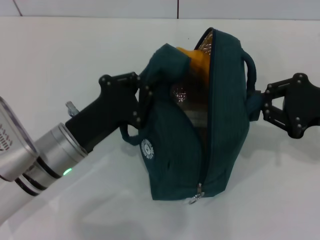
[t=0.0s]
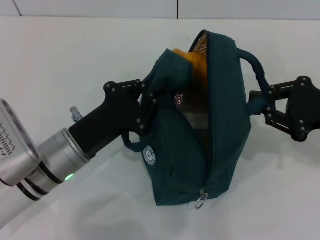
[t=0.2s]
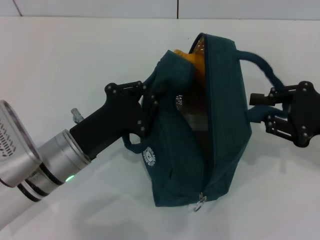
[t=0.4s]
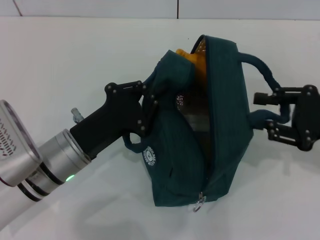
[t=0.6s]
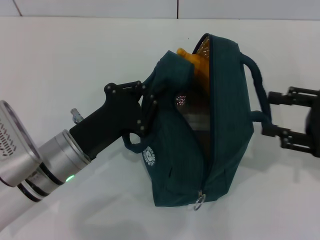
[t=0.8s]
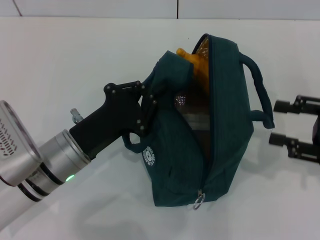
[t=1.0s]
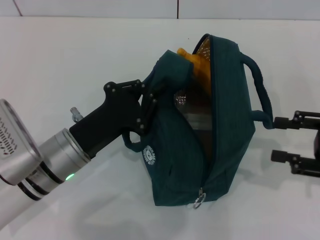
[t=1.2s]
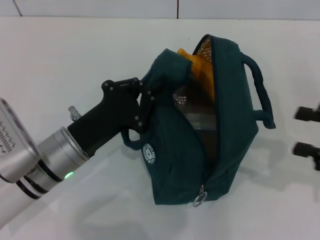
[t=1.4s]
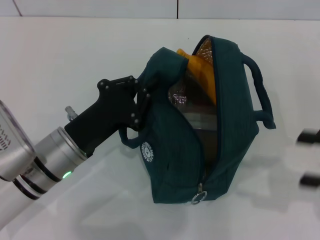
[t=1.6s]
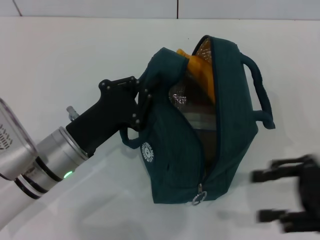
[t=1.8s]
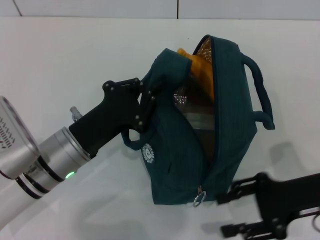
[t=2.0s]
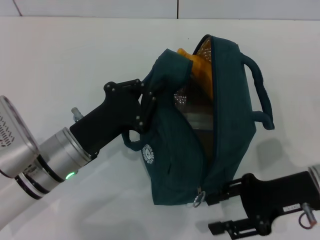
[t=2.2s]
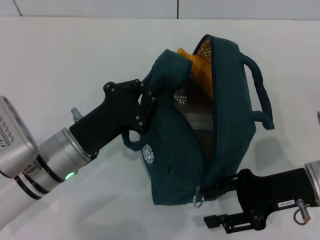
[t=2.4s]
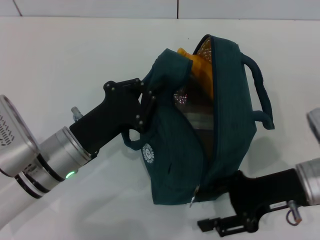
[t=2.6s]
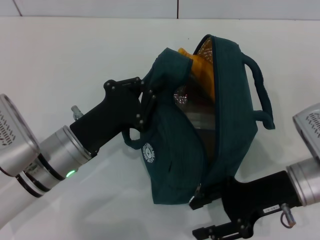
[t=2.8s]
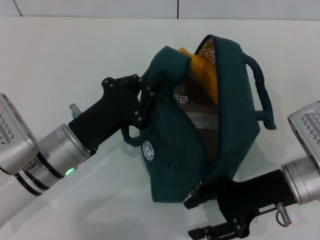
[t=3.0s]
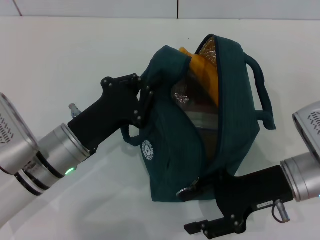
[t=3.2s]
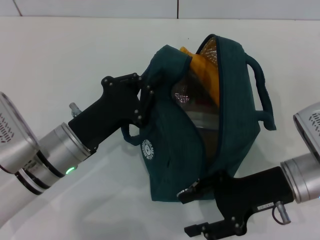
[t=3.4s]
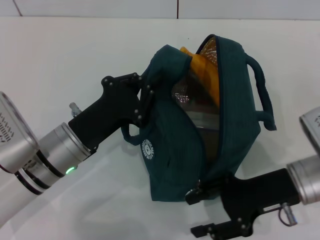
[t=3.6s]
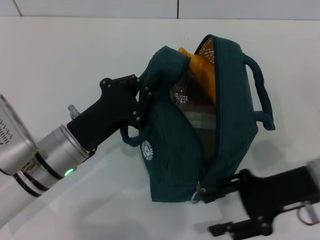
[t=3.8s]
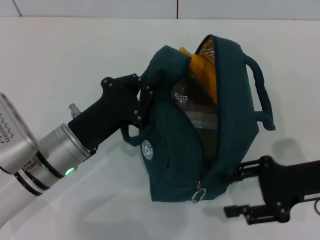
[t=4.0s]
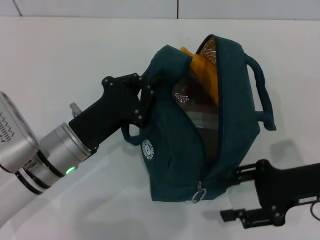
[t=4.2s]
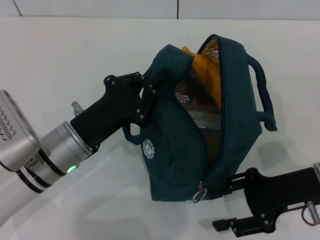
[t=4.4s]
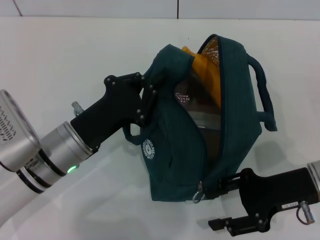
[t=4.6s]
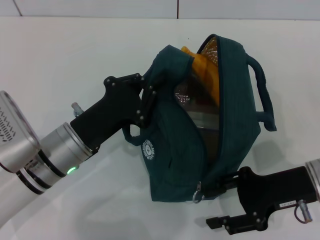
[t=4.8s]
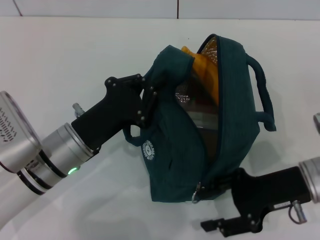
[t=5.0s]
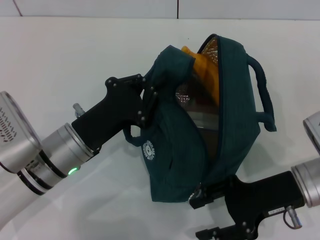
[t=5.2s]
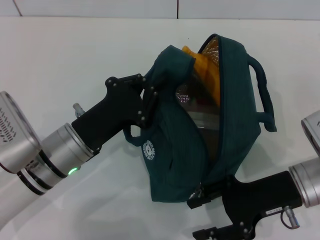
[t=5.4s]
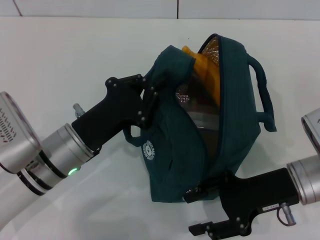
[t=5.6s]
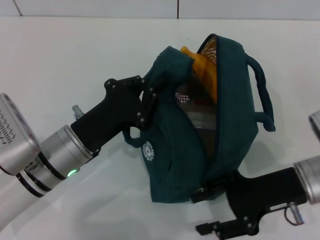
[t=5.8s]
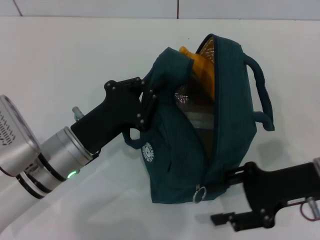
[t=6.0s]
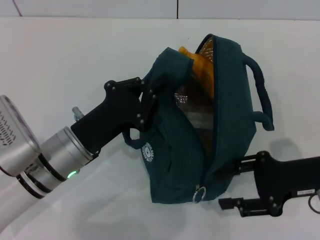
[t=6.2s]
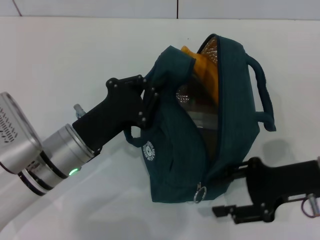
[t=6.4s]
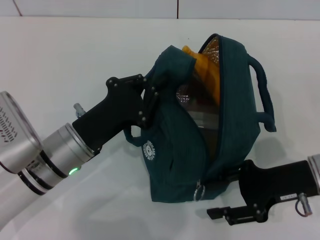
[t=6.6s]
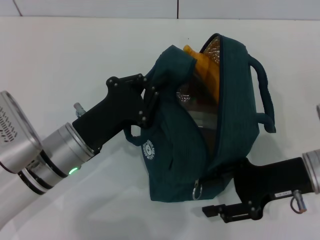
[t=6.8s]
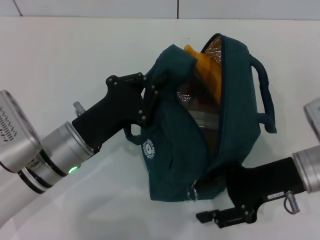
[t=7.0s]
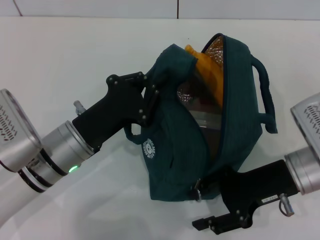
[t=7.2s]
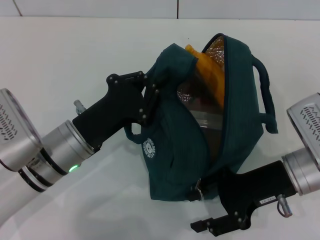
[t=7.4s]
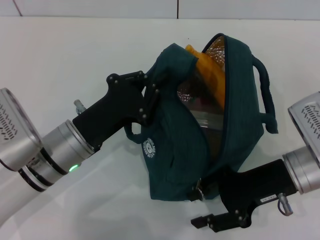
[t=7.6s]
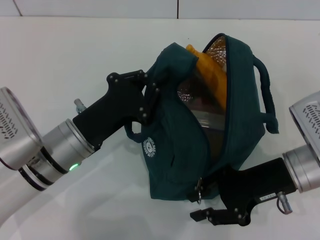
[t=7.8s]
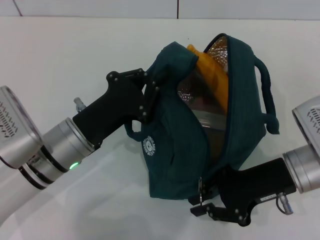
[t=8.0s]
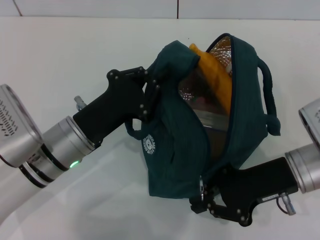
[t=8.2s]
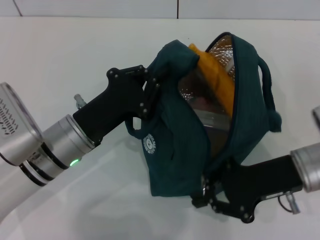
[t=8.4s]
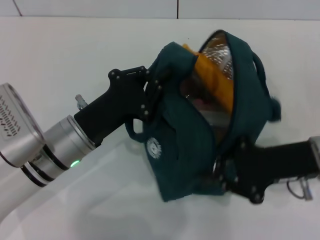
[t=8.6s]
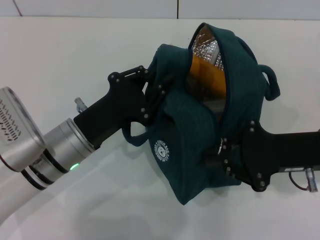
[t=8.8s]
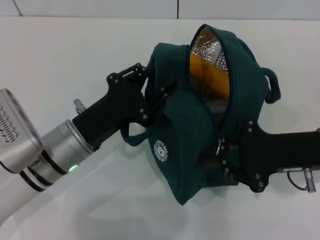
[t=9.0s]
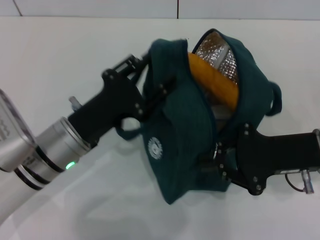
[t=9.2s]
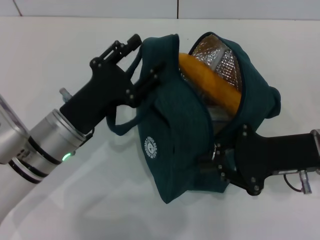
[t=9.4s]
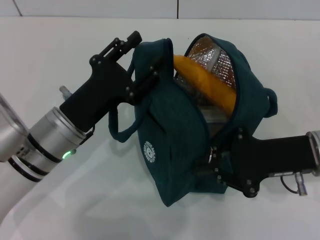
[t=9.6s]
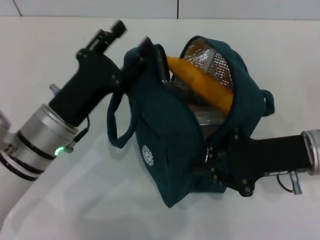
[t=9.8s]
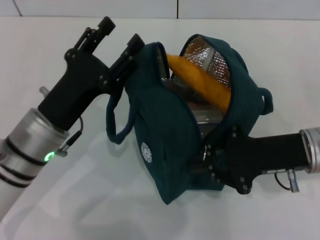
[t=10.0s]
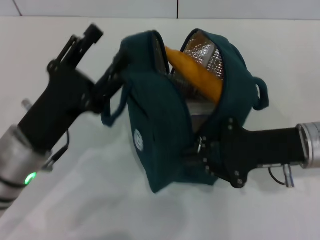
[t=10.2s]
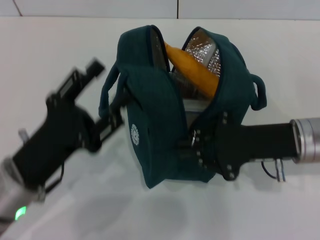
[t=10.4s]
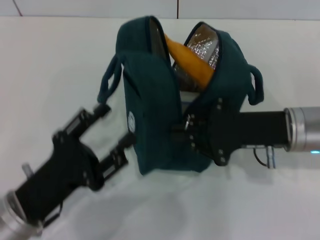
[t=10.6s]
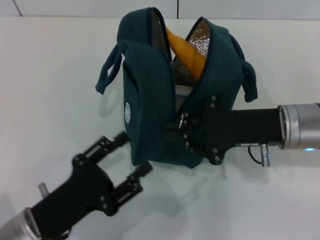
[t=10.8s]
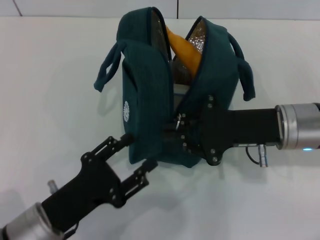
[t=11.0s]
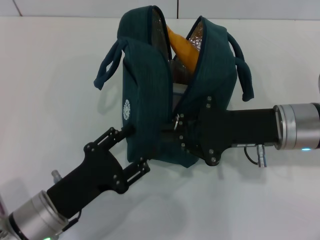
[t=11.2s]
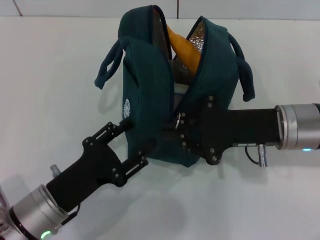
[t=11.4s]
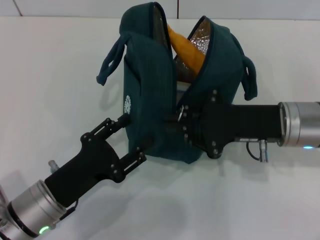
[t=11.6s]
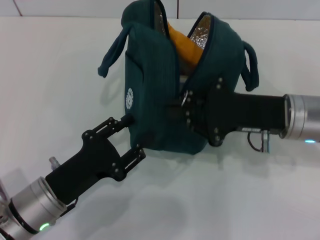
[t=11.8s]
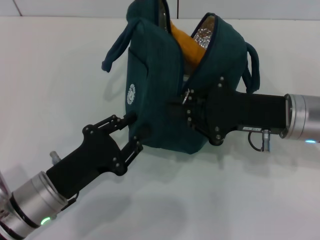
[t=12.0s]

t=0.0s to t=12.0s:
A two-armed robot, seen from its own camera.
t=0.0s to t=1.6s: The right gripper travels backward and to the right by roughly 10 cm, and opens its fingers.
t=1.6s to t=3.0s: The right gripper travels to the left and downward by roughly 15 cm.
t=4.4s to t=7.6s: The grippers make only small movements.
t=7.6s to t=9.0s: The right gripper closes.
t=9.0s to t=10.4s: The left gripper goes roughly 5 cm backward, and opens its fingers.

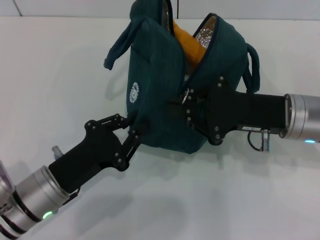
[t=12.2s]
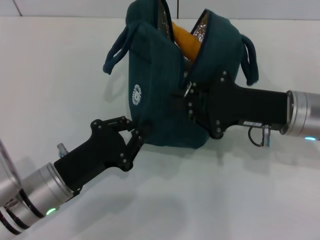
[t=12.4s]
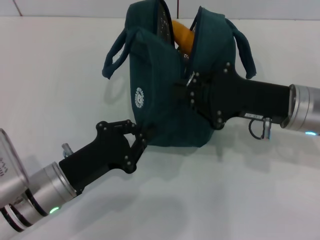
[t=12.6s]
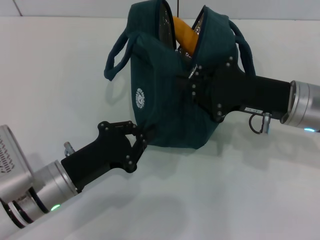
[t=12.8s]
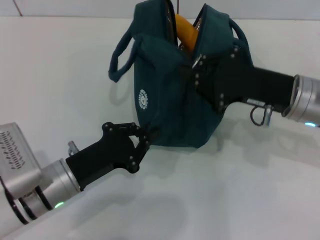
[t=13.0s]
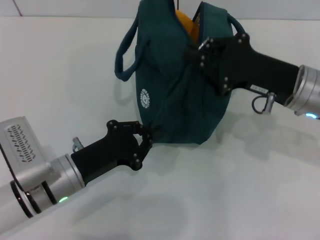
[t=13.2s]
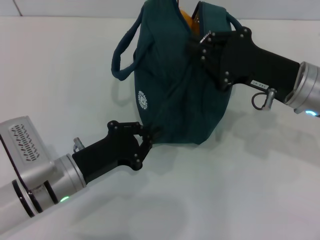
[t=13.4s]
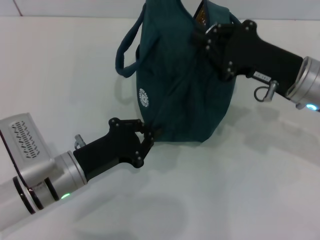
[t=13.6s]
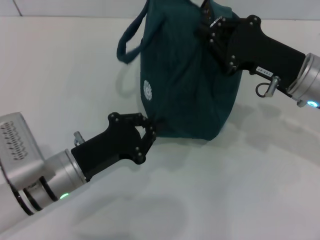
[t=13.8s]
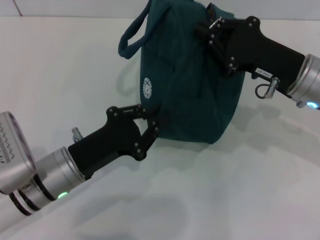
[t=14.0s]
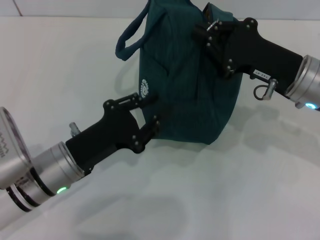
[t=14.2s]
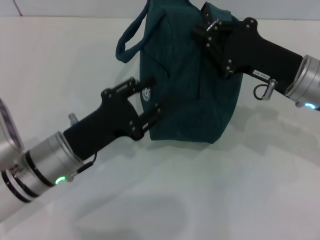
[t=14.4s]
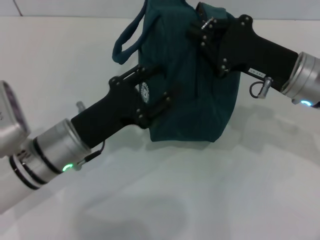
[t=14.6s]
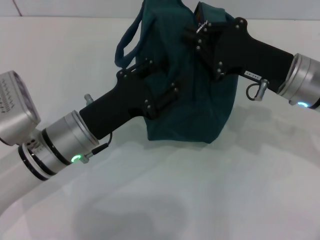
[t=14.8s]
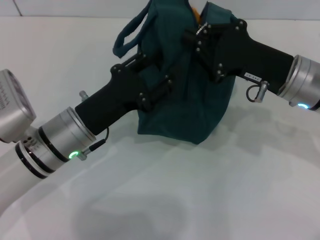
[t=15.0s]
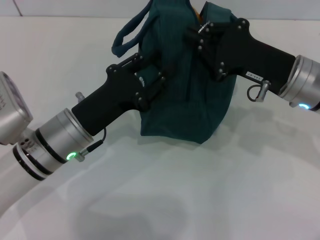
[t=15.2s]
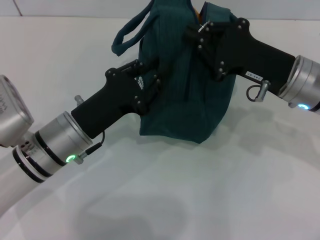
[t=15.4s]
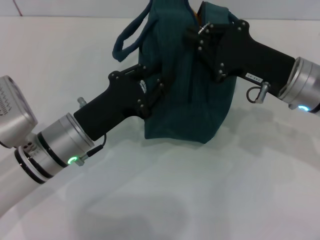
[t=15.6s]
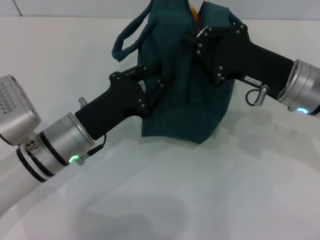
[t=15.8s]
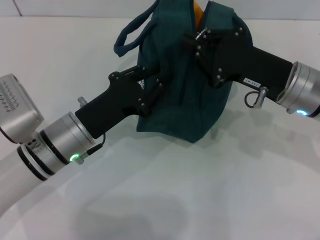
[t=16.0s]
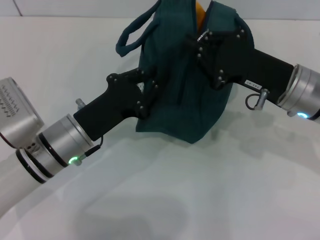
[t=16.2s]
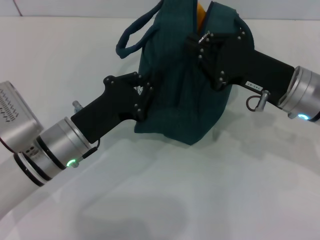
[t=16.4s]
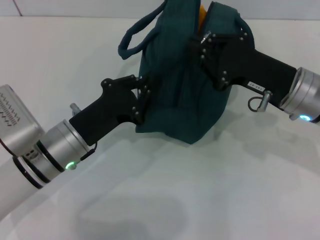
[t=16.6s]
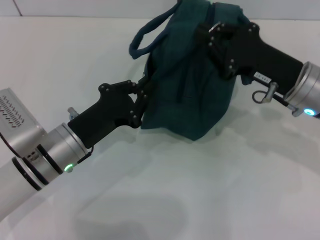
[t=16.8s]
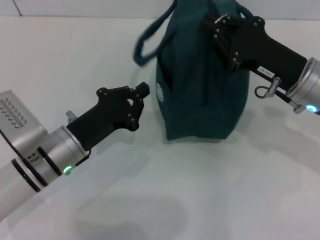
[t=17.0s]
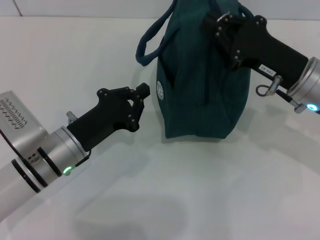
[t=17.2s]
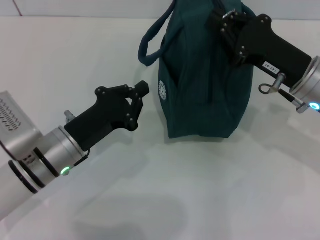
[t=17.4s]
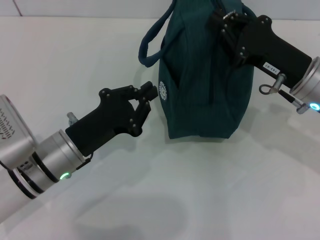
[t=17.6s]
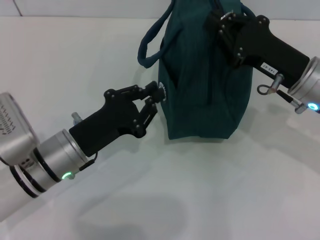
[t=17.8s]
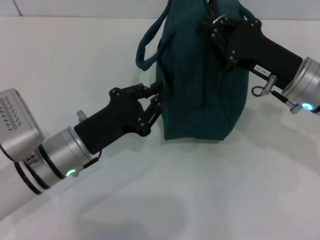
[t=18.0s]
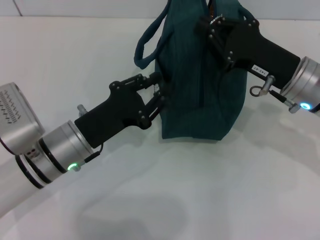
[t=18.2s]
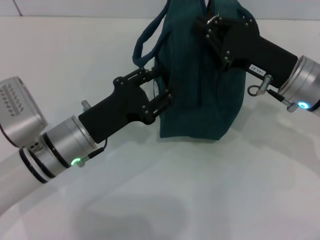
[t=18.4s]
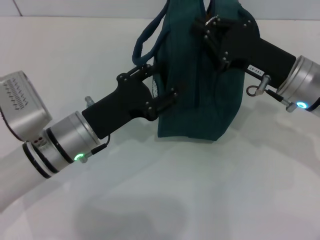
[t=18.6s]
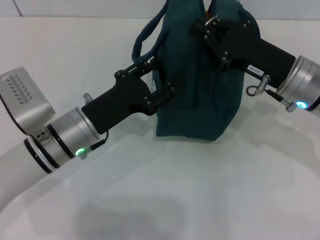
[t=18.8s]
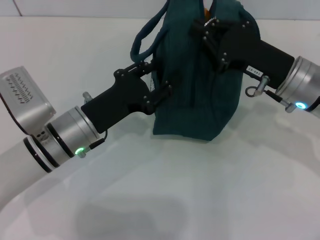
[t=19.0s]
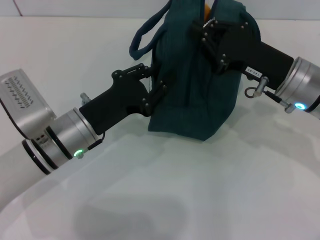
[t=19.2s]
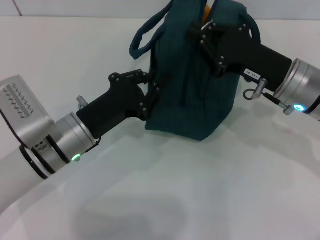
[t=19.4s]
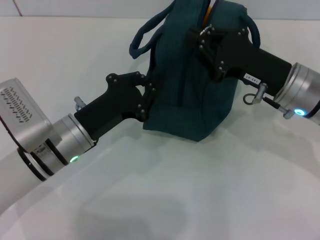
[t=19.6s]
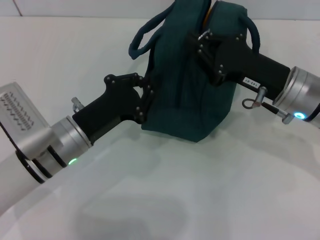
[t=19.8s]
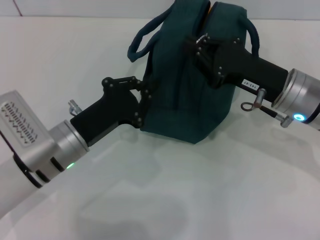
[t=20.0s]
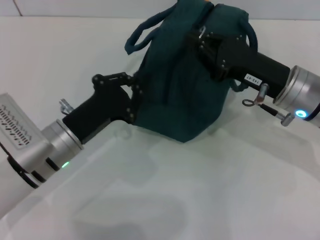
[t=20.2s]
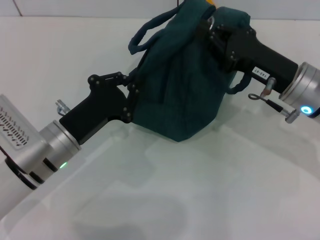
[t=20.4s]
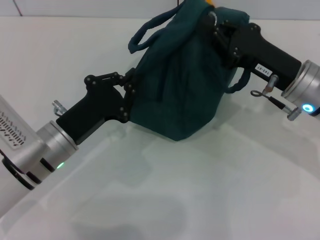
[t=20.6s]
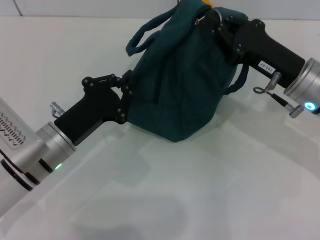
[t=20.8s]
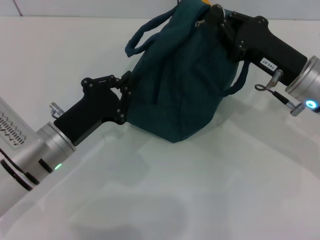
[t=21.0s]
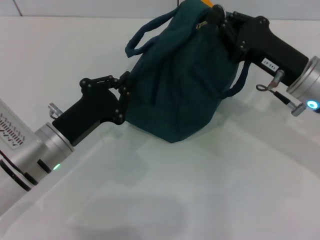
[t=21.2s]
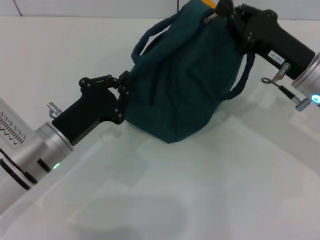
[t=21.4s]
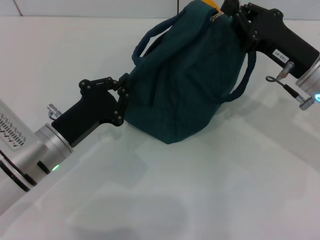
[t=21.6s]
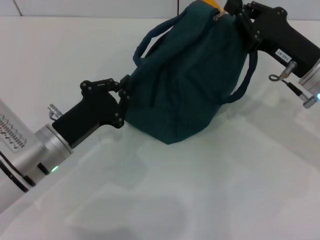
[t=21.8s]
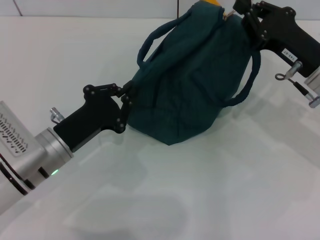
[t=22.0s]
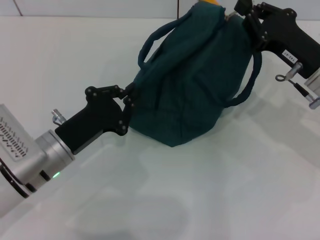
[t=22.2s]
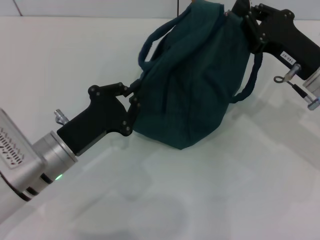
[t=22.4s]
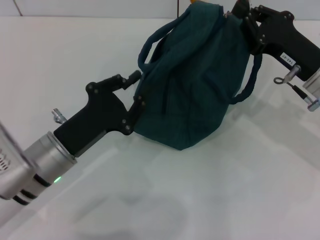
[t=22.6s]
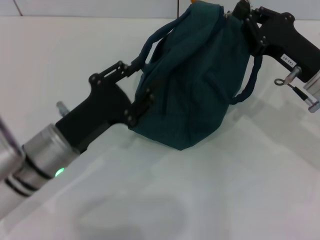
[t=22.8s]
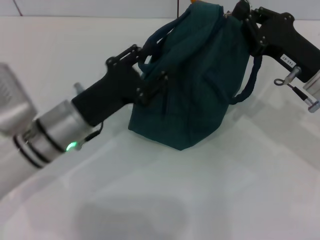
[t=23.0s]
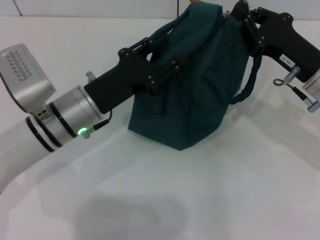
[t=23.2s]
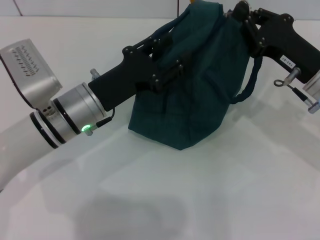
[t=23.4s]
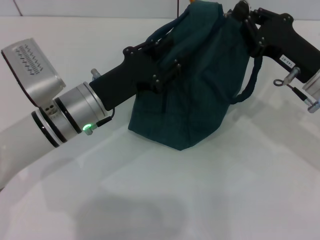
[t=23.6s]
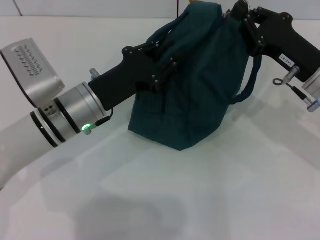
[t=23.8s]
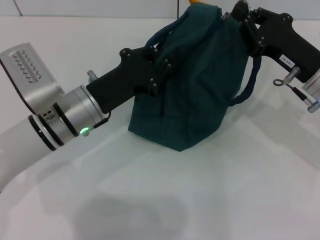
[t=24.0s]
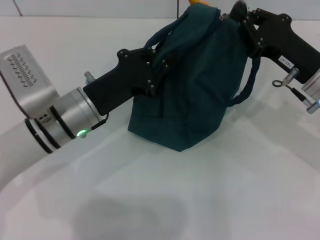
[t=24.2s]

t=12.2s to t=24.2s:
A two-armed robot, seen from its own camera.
t=12.2s to t=13.8s: The left gripper closes up.
t=13.8s to t=15.2s: The left gripper ends up roughly 5 cm from where it was, and opens up.
t=15.2s to t=16.6s: The left gripper closes up.
t=16.6s to t=18.2s: The grippers make only small movements.
t=18.2s to t=19.8s: The left gripper opens, then closes once more.
t=19.8s to t=22.6s: The grippers move only a little.
t=22.6s to t=24.2s: The left gripper goes about 5 cm forward, and opens, then closes once more.
